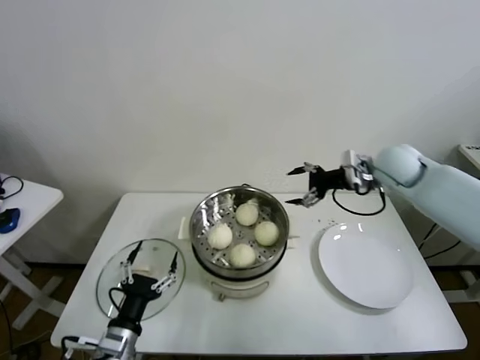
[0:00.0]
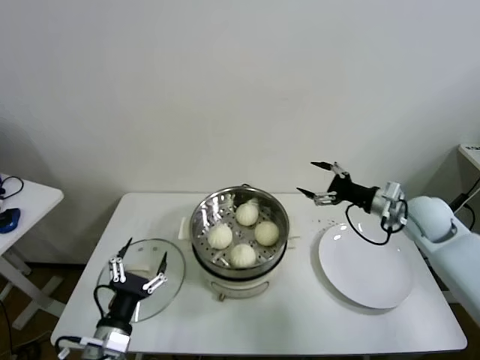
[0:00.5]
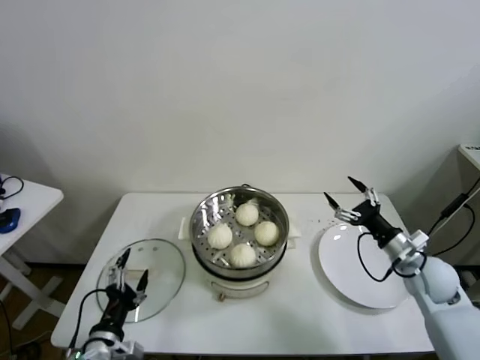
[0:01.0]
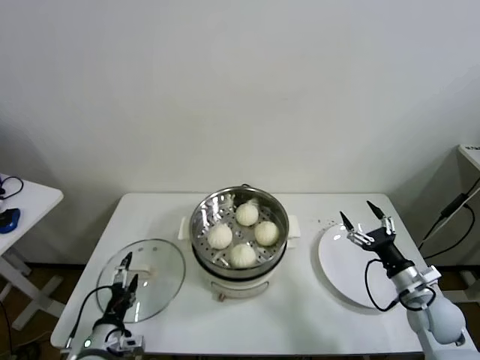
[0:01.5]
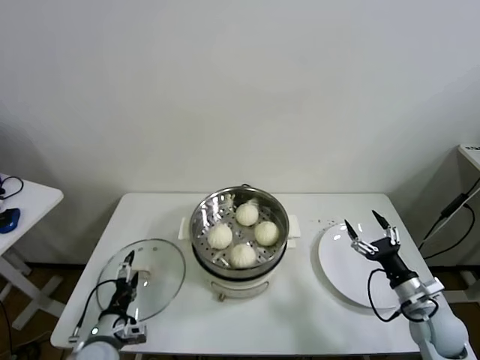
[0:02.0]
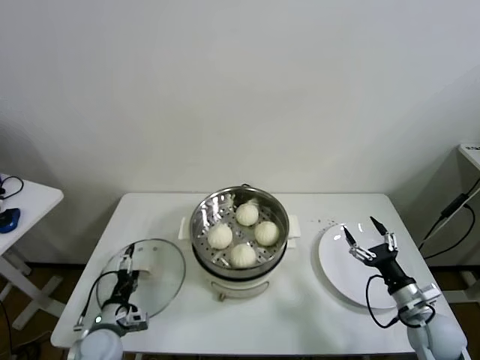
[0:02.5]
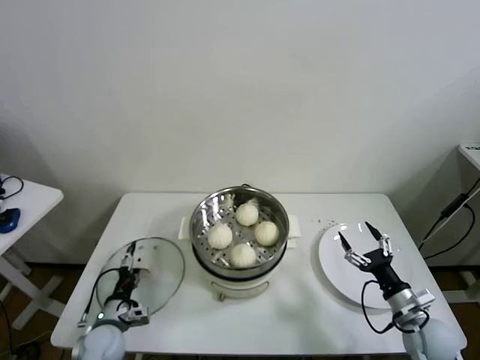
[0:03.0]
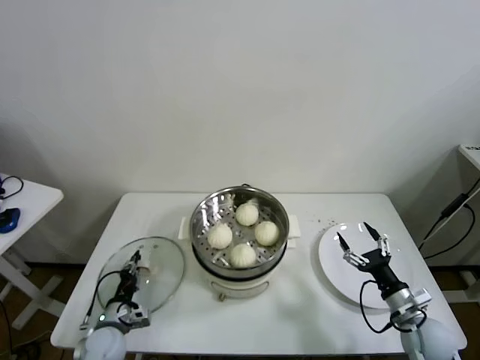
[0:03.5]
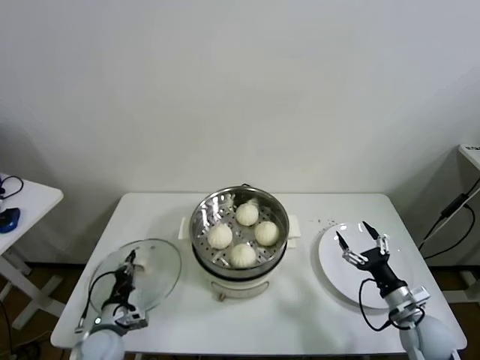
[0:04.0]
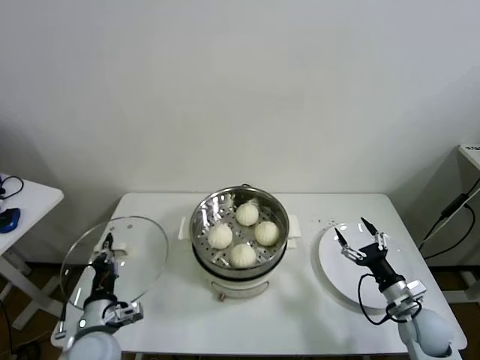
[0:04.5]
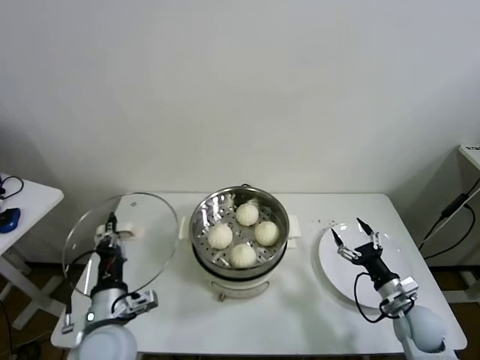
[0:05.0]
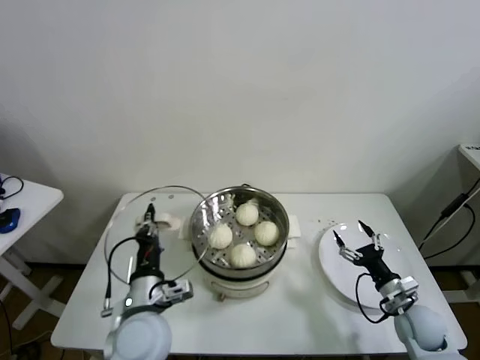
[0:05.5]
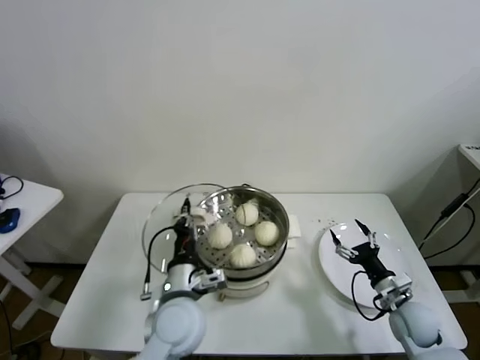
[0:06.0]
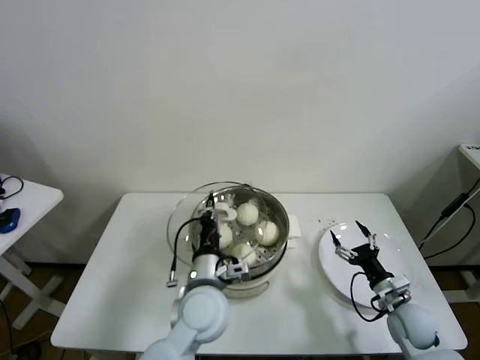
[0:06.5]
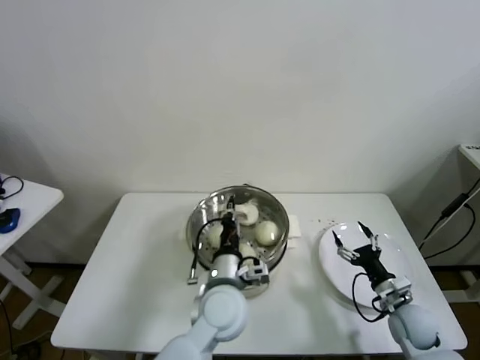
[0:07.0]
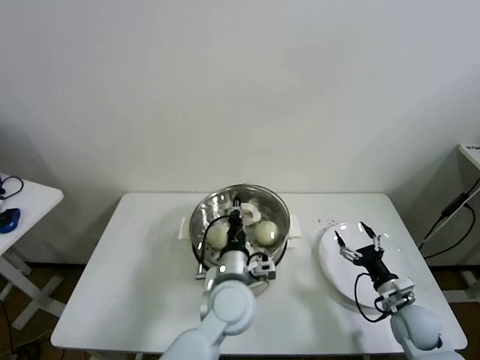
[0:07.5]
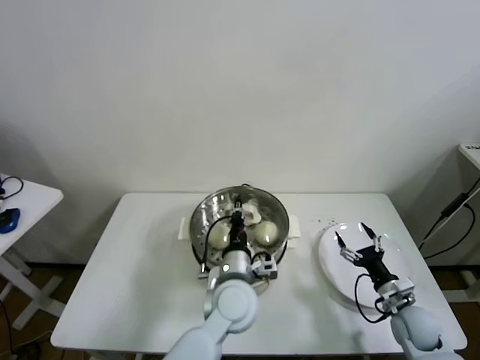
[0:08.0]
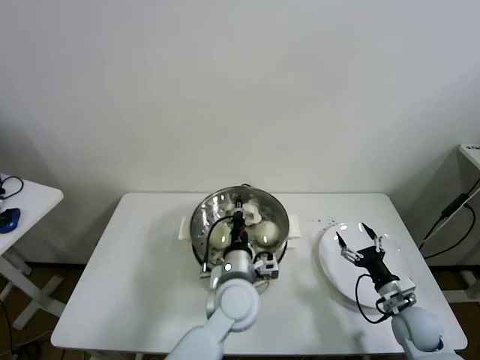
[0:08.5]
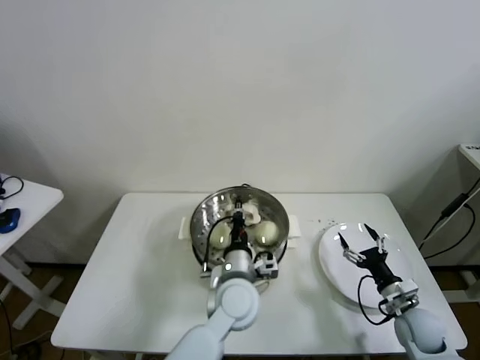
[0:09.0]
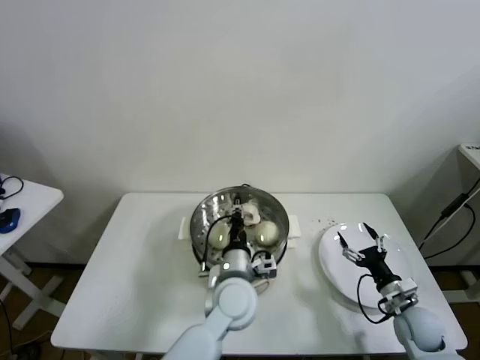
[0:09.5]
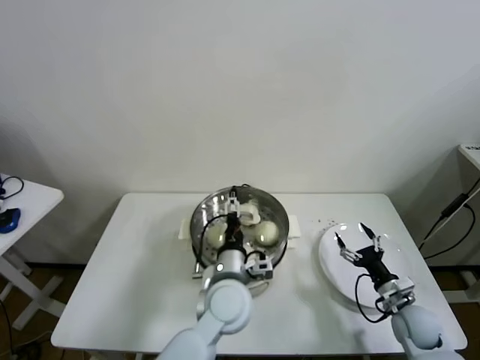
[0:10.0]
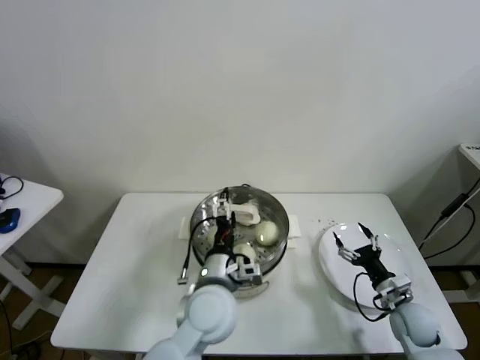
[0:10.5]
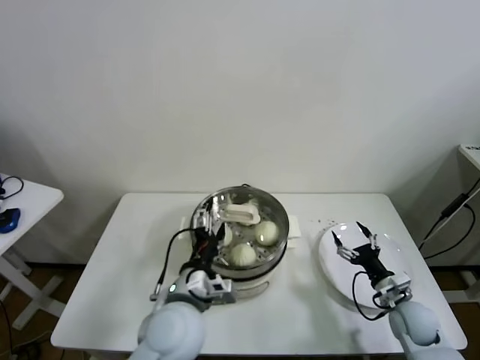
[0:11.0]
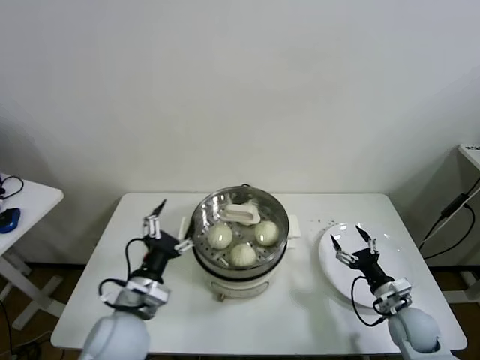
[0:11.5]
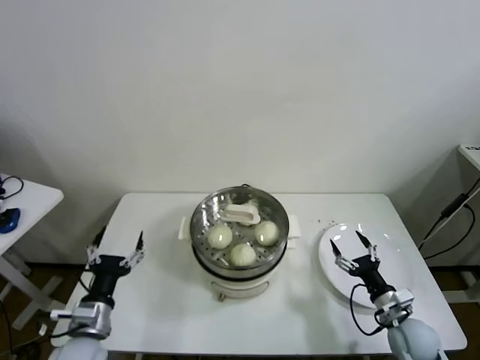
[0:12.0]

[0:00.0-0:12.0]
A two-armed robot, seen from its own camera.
Task of the whole recording: take steamed baozi put them in steamer.
Step, 0:00.0 to 0:03.5: Grasp the pot lid with left gripper.
Step, 0:04.0 to 0:10.0: Place the pot lid on the steamer with left gripper.
0:00.0 to 0:02.0: The left gripper heads downward and to the left, covering approximately 10 cm. The right gripper goes approximately 35 cm downward and backward.
0:02.0 to 0:04.0: The left gripper closes its fingers.
0:04.0 to 0:06.0: The left gripper heads to the right and upward, covering some 25 cm.
0:06.0 to 0:08.0: The left gripper heads to the right, covering about 10 cm.
0:08.0 to 0:10.0: The left gripper opens up.
0:10.0 to 0:12.0: The left gripper is displaced to the left by some 25 cm.
